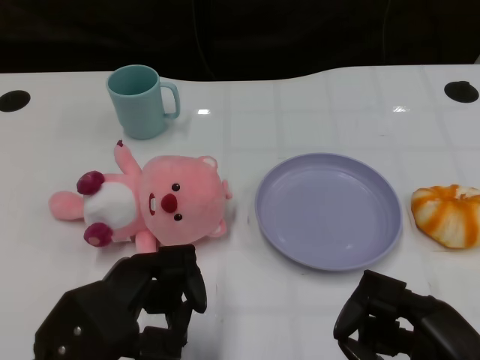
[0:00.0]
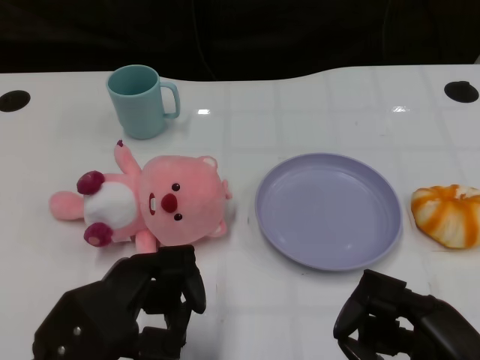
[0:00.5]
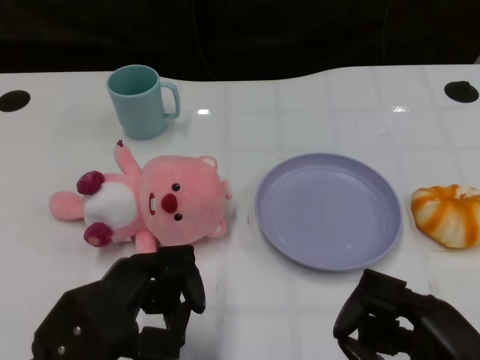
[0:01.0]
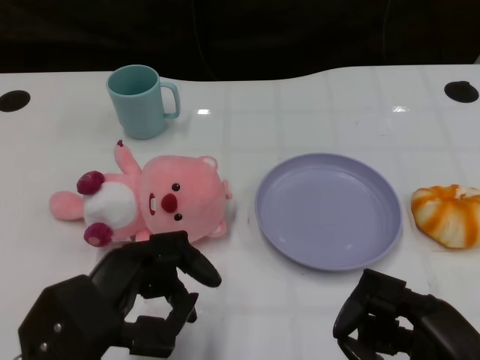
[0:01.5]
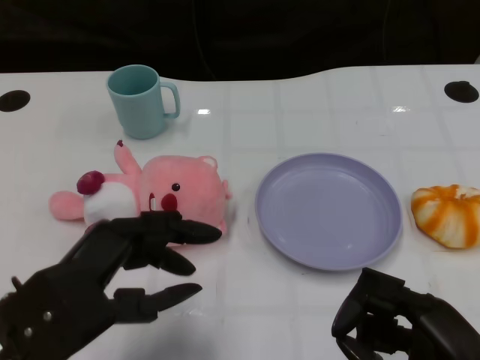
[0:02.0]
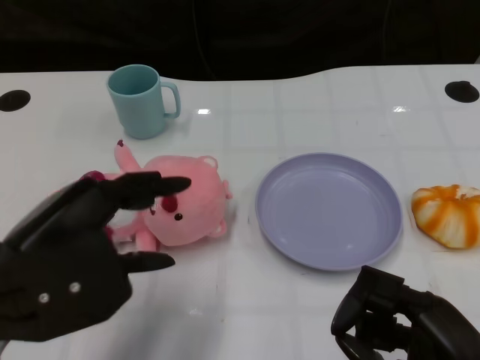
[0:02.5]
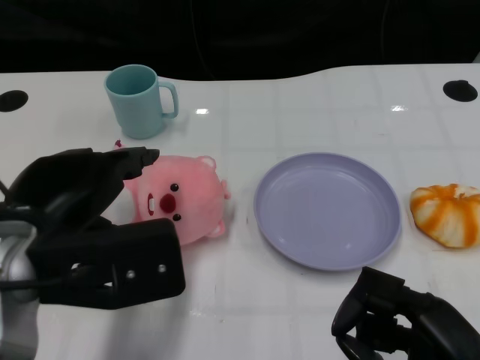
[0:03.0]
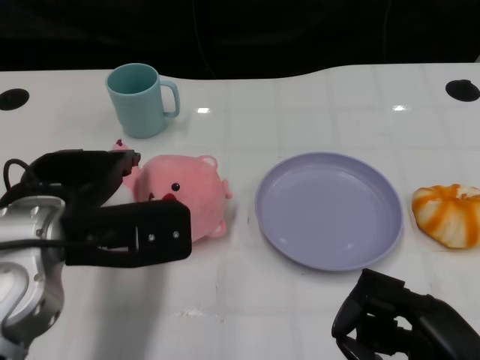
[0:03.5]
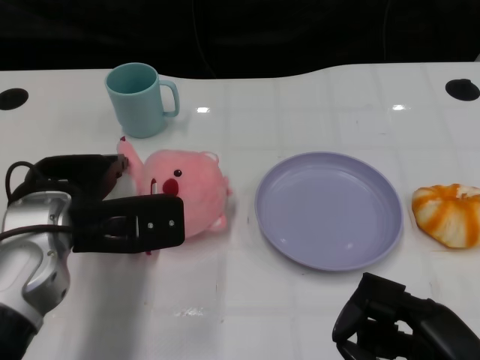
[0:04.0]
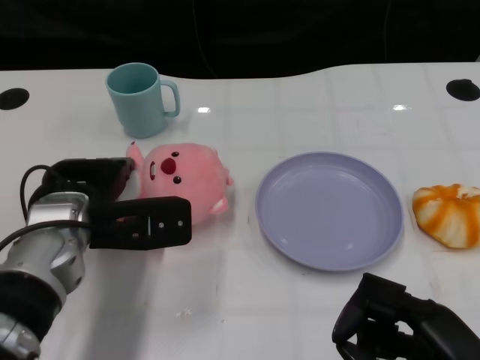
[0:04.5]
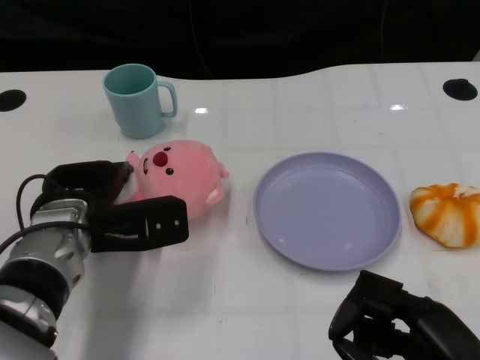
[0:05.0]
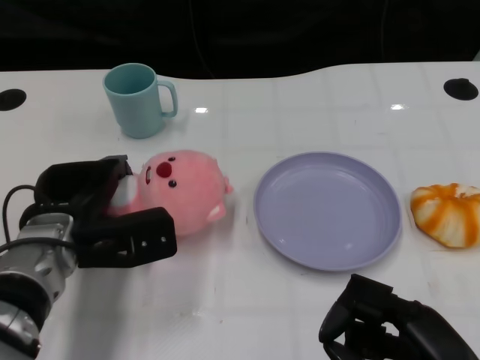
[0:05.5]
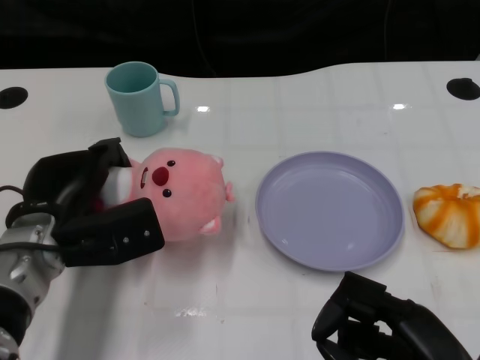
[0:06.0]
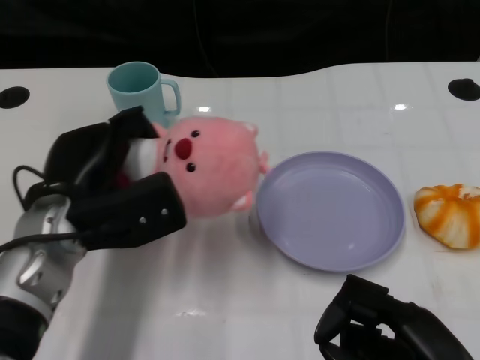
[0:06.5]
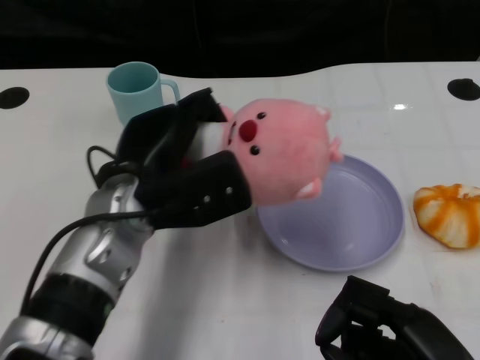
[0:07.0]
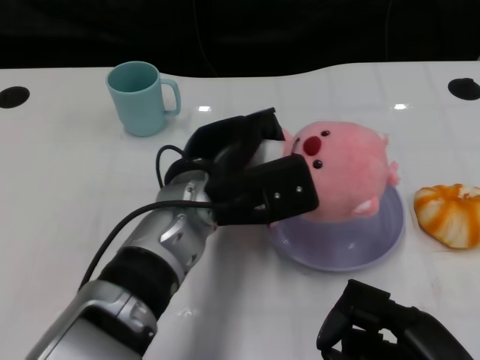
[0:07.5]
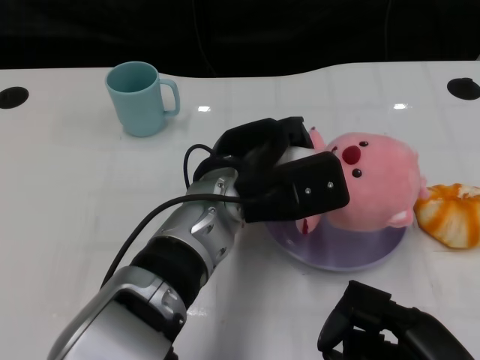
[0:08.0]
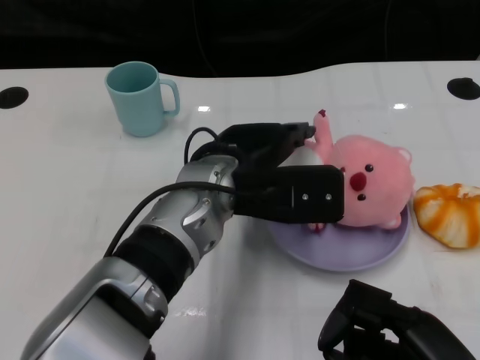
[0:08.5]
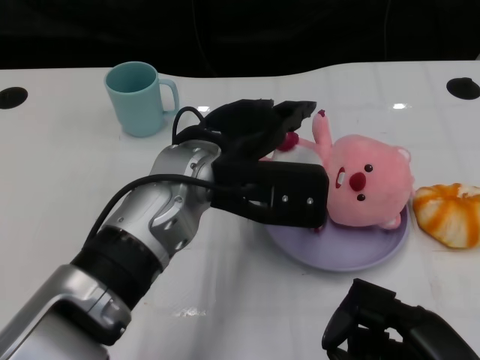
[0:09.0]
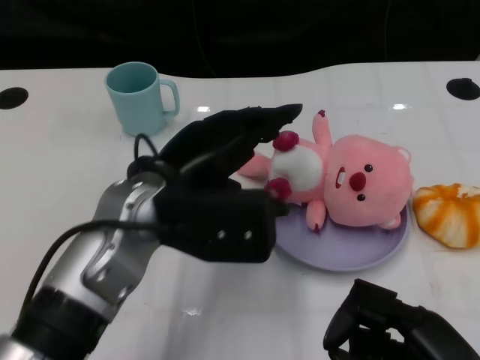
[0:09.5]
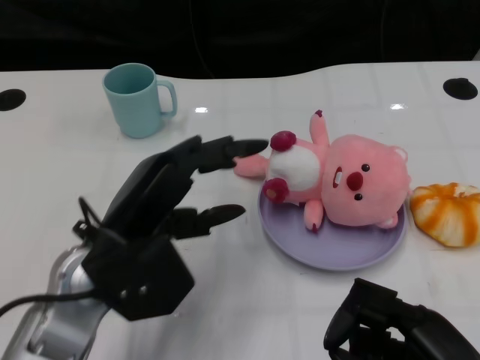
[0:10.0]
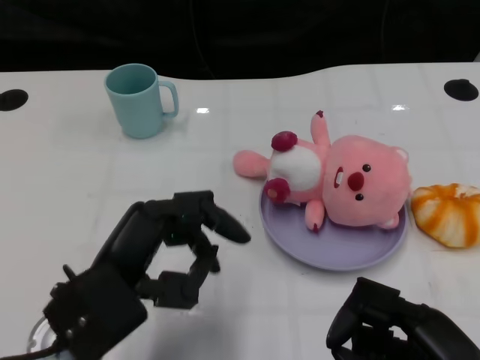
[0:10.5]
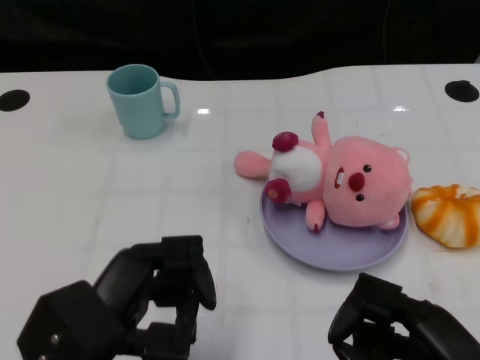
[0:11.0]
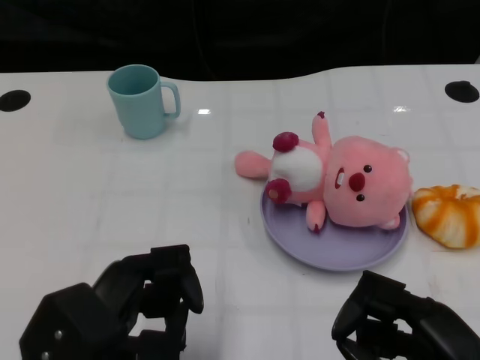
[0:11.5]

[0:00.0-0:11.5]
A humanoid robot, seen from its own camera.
Task of the whole recording: Pick up the doll on one side of the plate and place it into the plate.
Step, 1.5 to 6.0 s: Grasp the pink doll with the left gripper.
Step, 6.5 to 8.5 s: Place the pink doll into the plate with the left gripper.
2.0 to 4.0 s: The left hand shifts approximately 10 cm forward.
4.0 to 6.0 s: The left hand is displaced downward by about 5 cm.
6.0 to 7.5 s: The left hand heads to the right, covering approximately 15 cm.
7.5 to 9.5 s: The left hand moves approximately 5 cm.
9.5 to 11.5 s: The left hand heads backward, to the left and downward, covering about 15 cm.

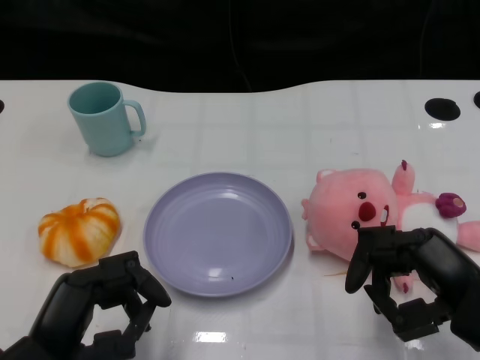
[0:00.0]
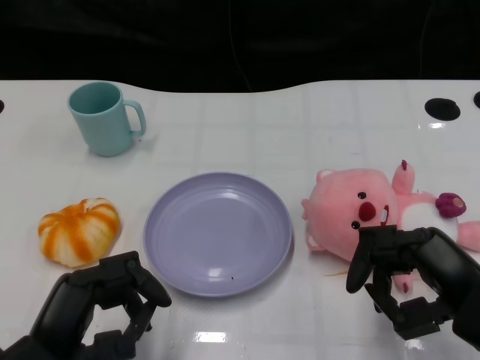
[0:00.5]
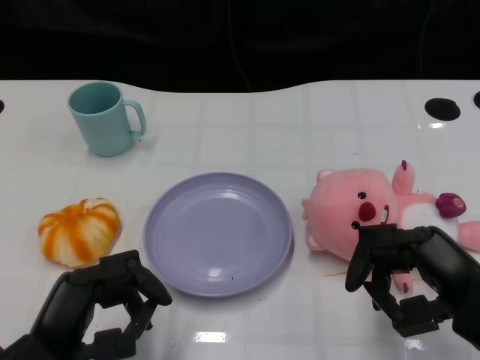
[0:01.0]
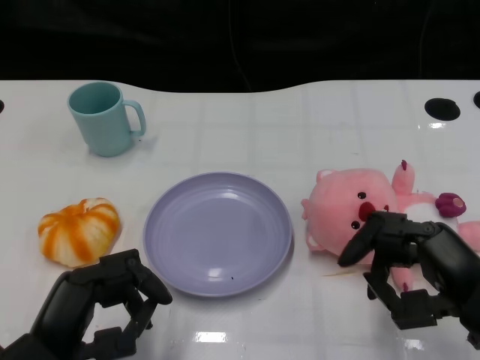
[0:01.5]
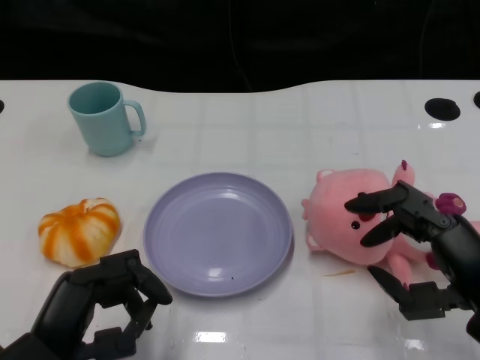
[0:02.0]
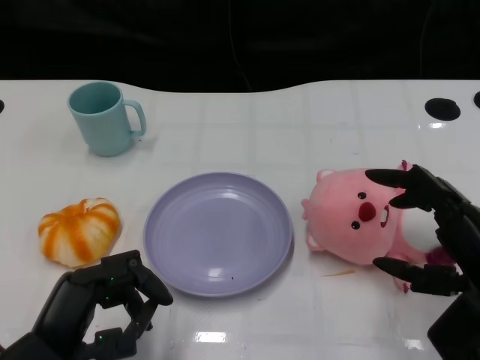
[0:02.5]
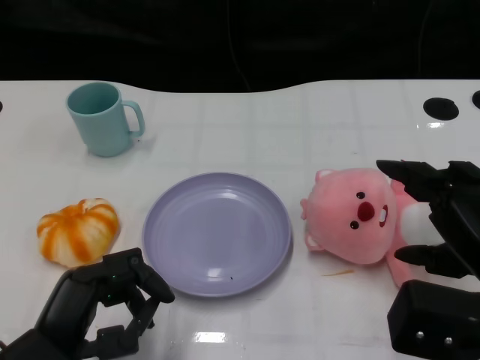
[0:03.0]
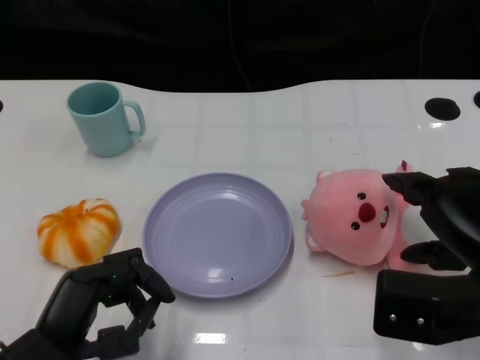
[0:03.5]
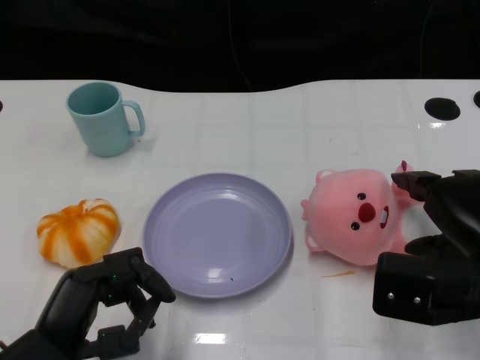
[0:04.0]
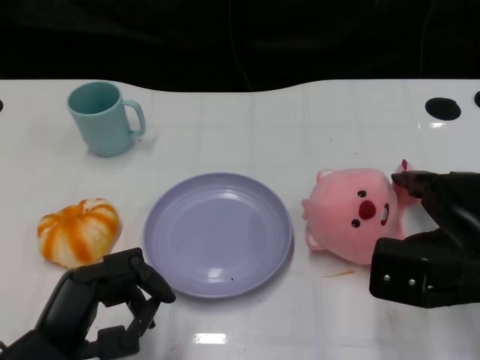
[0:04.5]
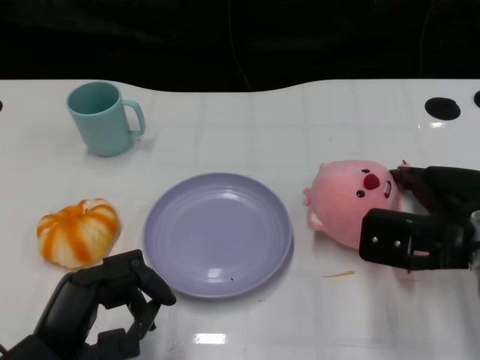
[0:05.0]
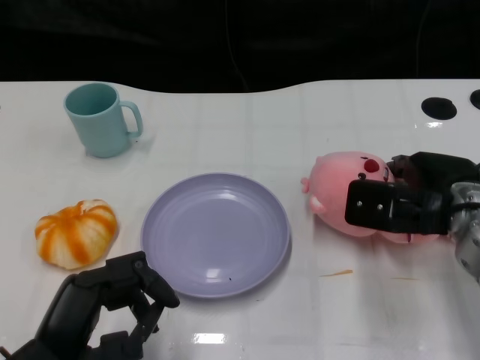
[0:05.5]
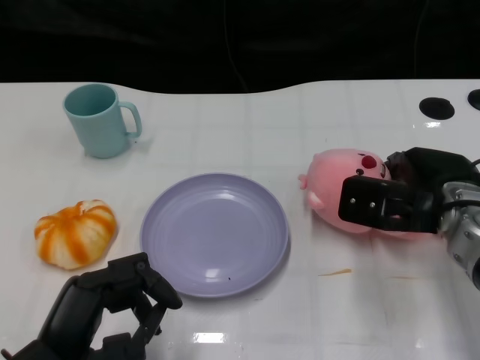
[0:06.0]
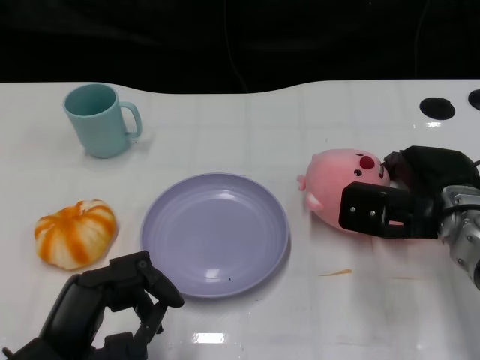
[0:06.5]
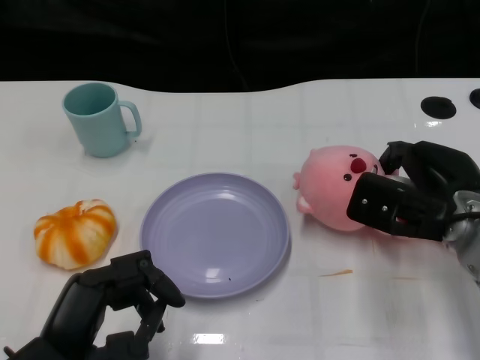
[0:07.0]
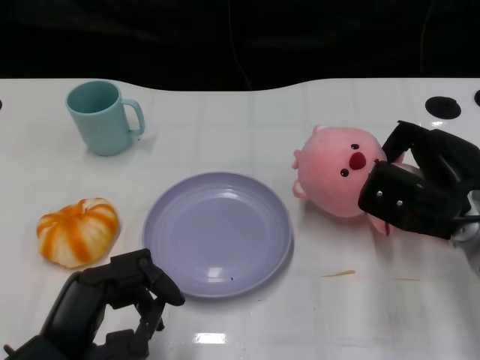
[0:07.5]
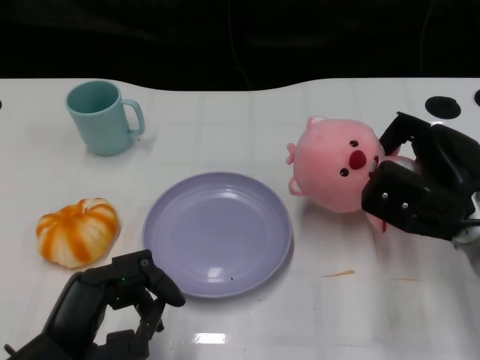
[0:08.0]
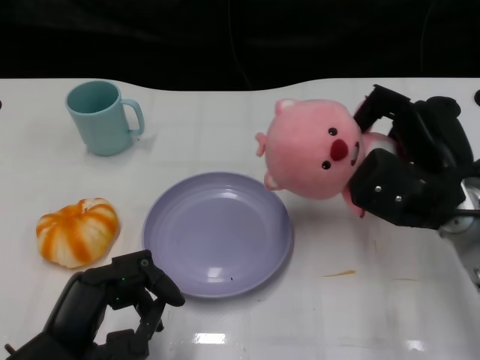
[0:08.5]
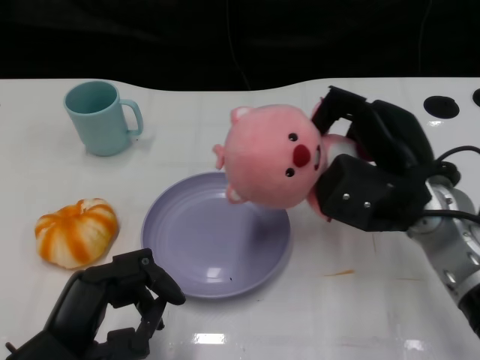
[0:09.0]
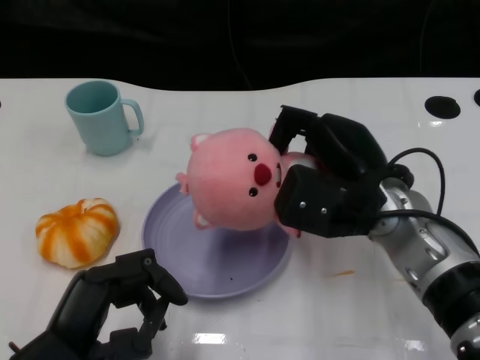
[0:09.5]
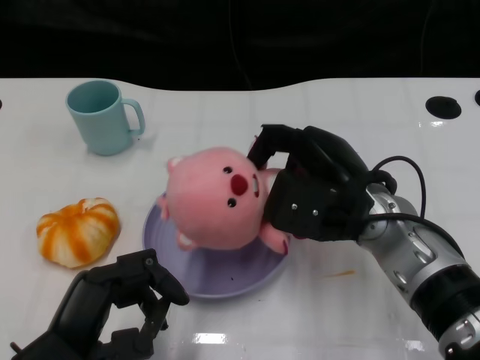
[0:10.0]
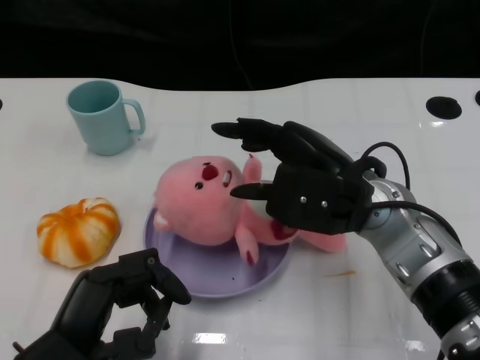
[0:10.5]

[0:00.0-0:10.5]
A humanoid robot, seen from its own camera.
Task of the whole recording: Pick up the doll on the other side of the plate and place it into the plate.
Step, 1.5 to 8.5 s: Grasp the pink doll with the right gripper.
4.0 to 6.5 s: The right hand goes approximately 10 cm forward.
8.5 to 10.5 s: The right hand moves to the left, some 10 cm.

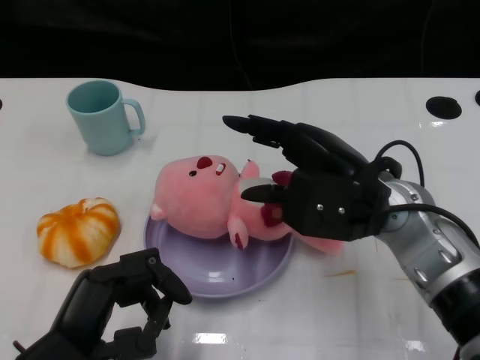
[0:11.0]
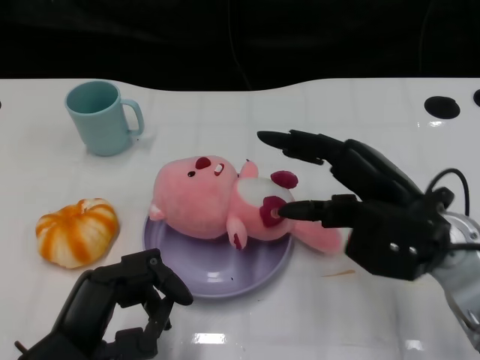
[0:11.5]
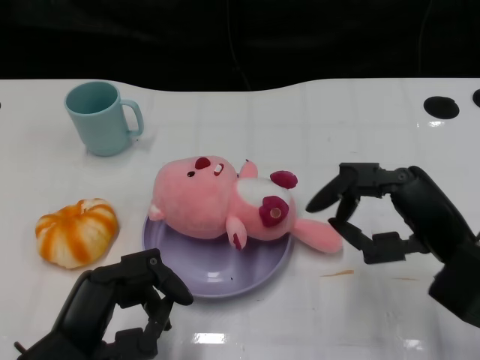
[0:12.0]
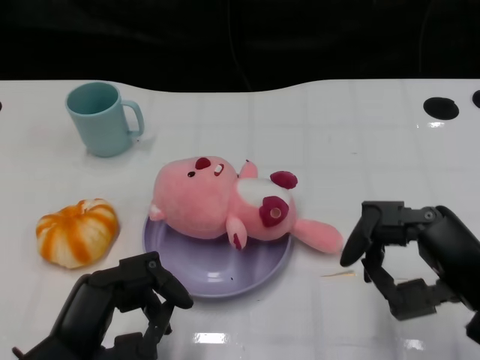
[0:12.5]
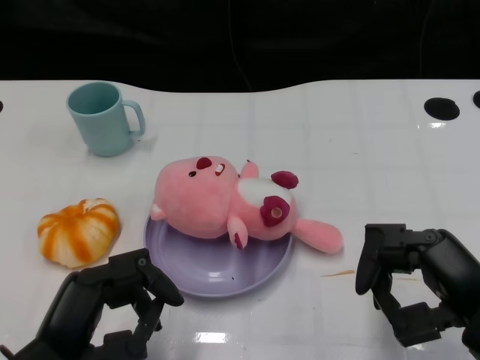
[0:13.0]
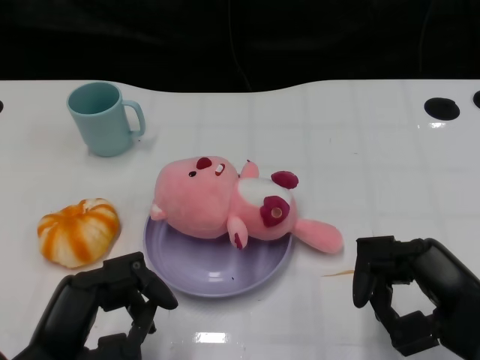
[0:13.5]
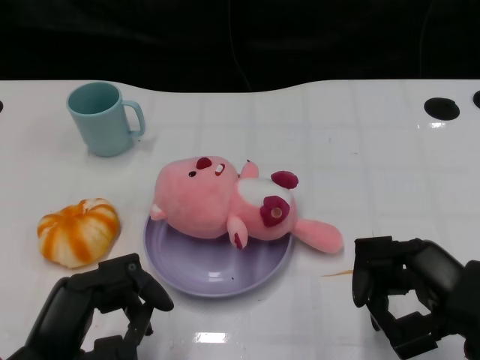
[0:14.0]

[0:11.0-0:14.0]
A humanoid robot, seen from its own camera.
Task of the whole recording: Pick up the doll on the other side of the plate and place it into the plate.
11.0 to 12.5 s: The right hand moves to the right and backward, some 15 cm.

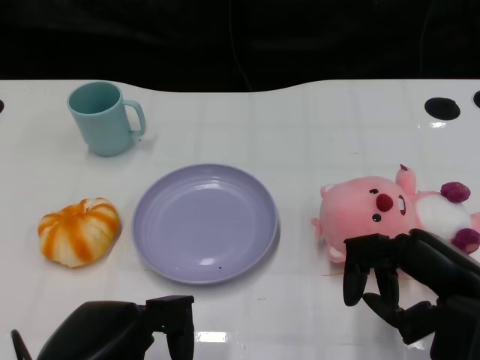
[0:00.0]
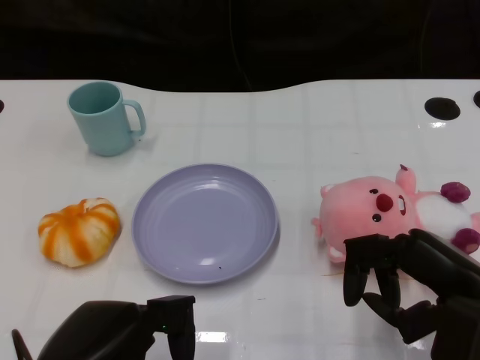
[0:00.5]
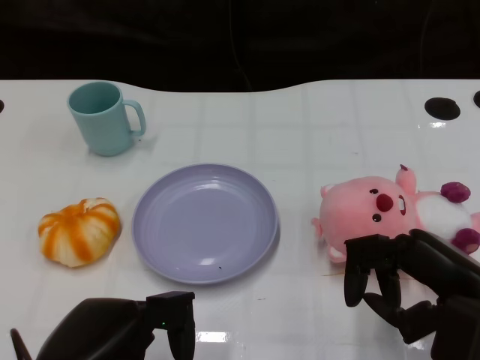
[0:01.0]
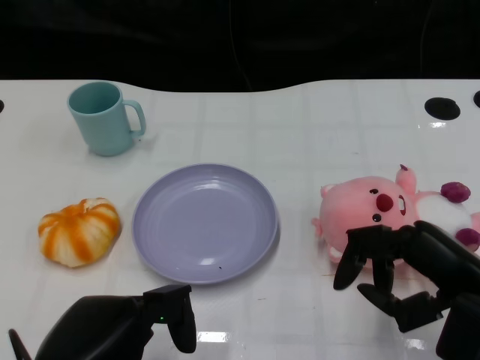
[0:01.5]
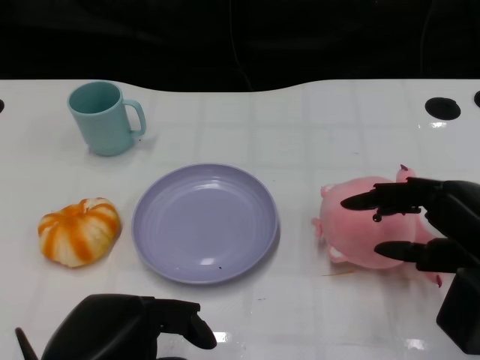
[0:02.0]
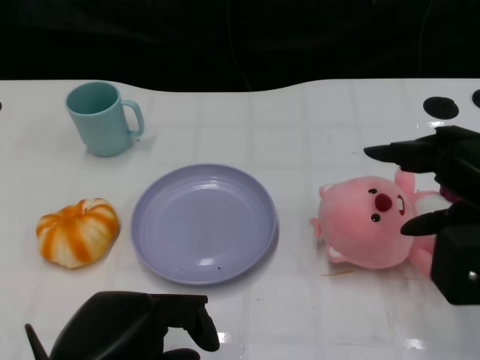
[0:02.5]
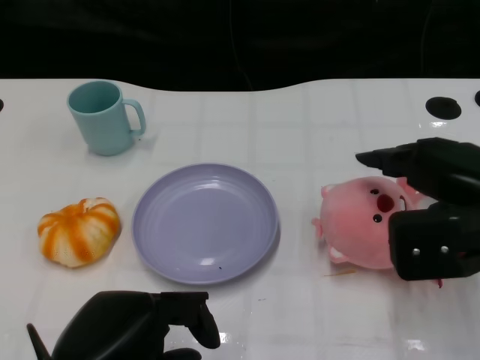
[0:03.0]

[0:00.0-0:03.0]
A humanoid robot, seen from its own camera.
Task of the whole recording: Pick up the doll on the other side of the plate and place it into the plate.
1.5 to 3.0 s: The right hand shifts some 10 cm forward and upward.
